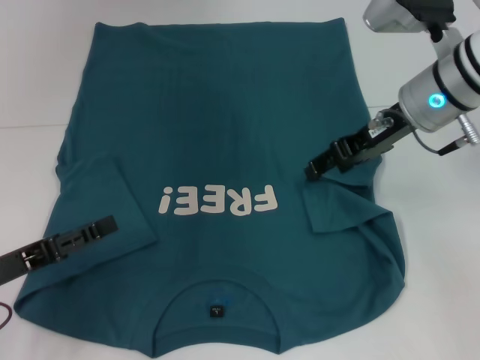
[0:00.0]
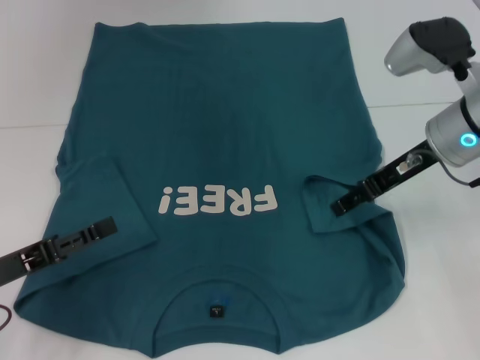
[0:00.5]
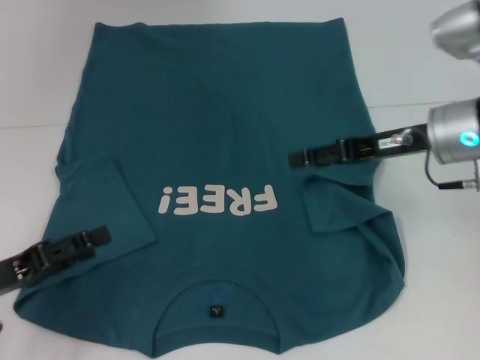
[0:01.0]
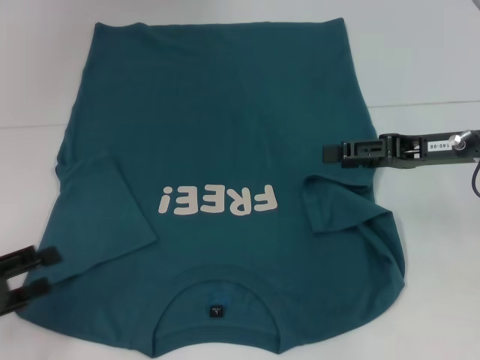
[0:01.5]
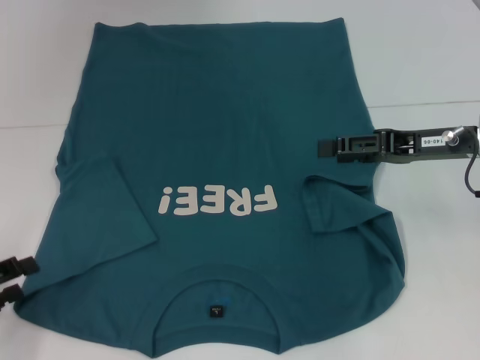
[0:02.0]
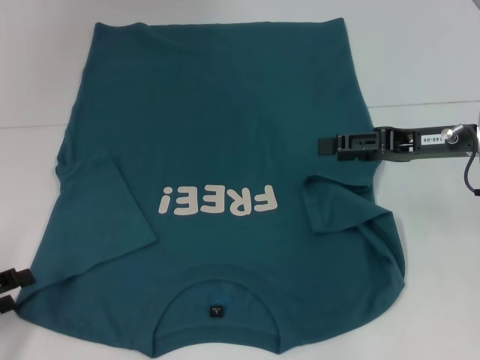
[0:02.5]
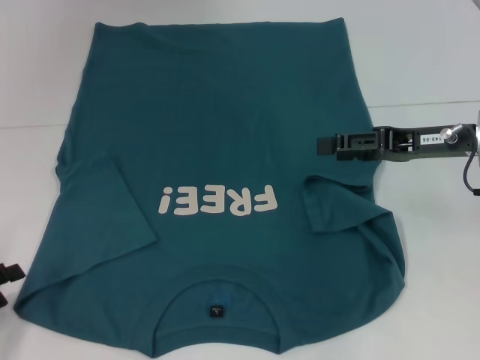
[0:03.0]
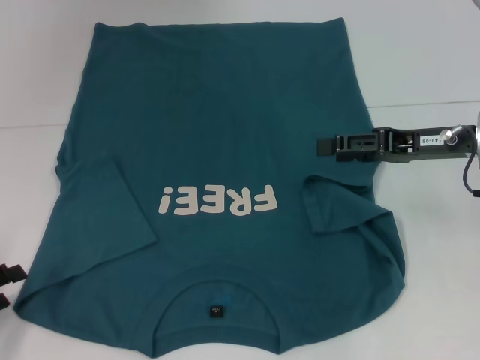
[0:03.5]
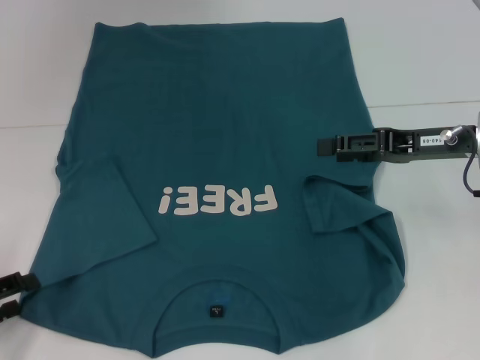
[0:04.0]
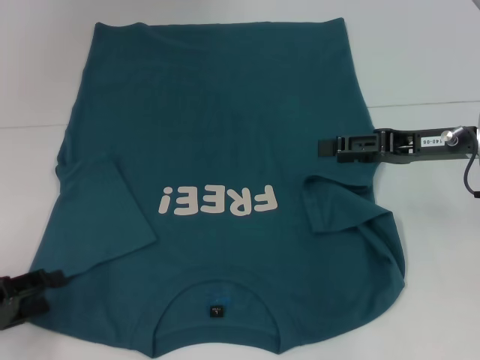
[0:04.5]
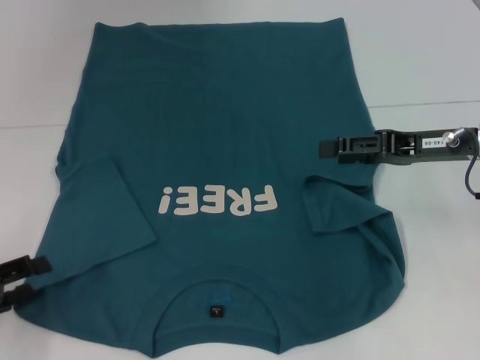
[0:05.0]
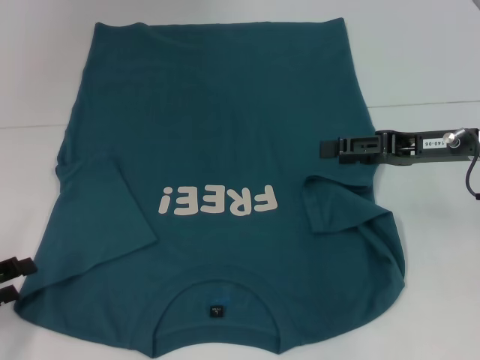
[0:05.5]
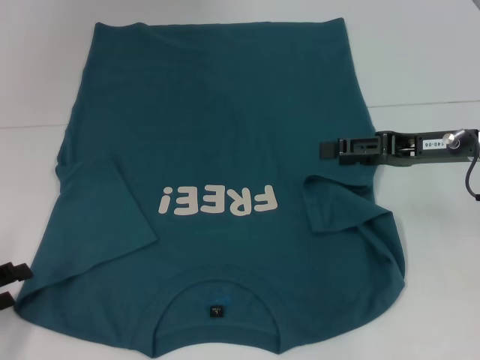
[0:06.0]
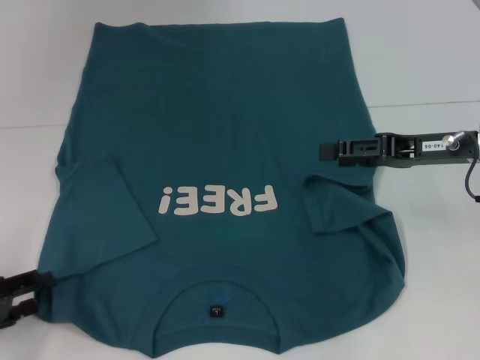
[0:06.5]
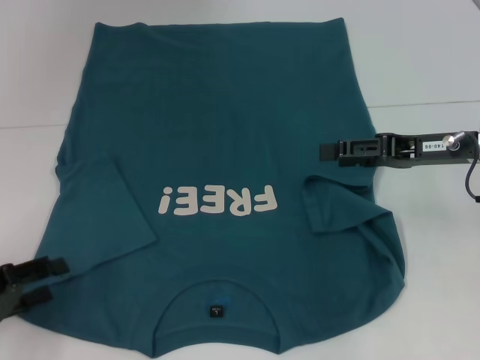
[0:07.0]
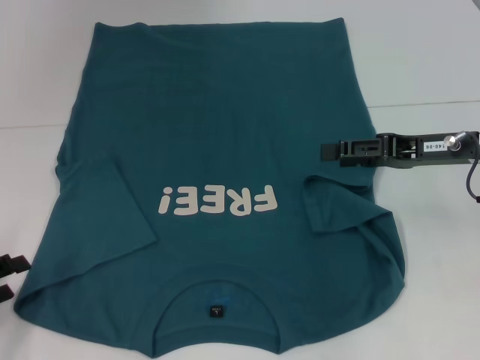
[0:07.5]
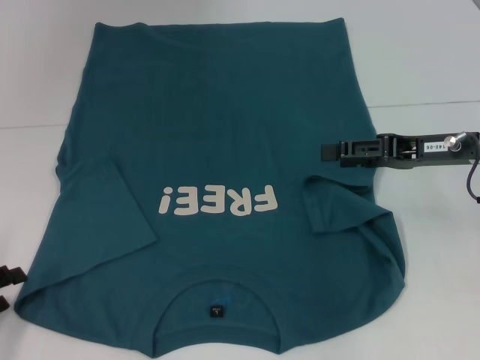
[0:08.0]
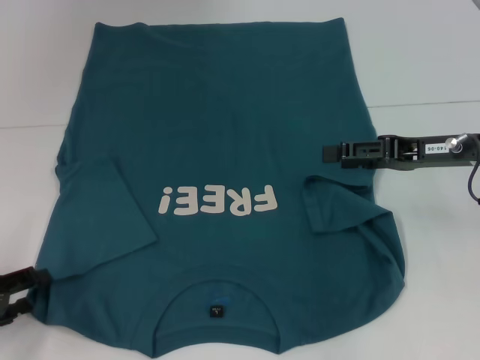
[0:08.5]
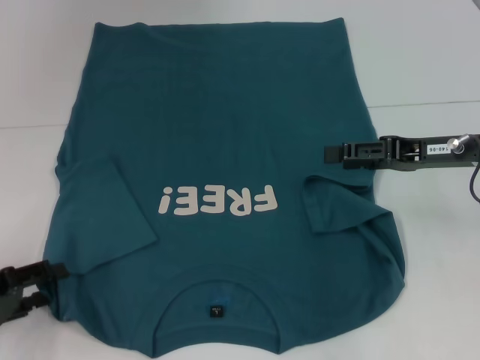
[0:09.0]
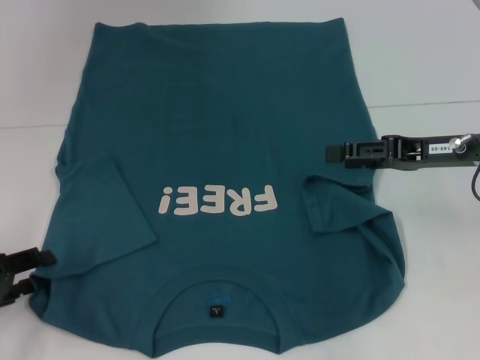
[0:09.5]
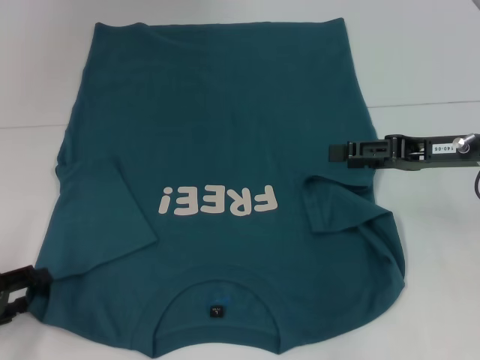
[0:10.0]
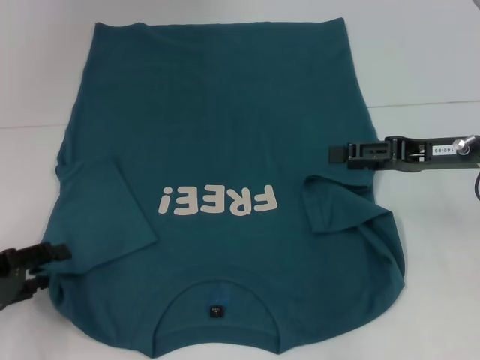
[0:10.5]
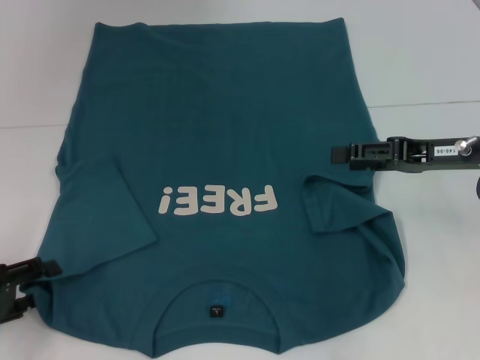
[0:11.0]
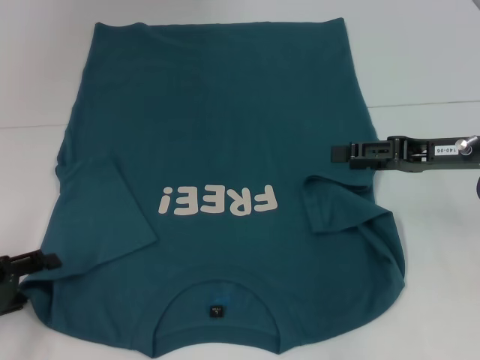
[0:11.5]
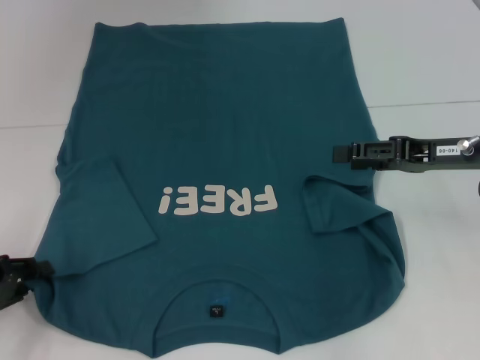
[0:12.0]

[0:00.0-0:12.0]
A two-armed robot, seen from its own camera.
0:00.0 to 0:02.0: The right gripper goes some 10 cm to the right and backward. Meanwhile the left gripper heads to the left, covering roughly 5 cm.
0:02.0 to 0:12.0: The grippers stay close to where they were, moving slightly.

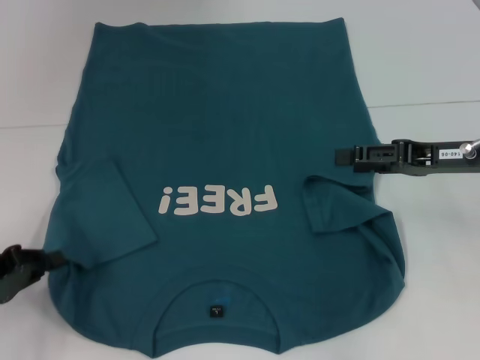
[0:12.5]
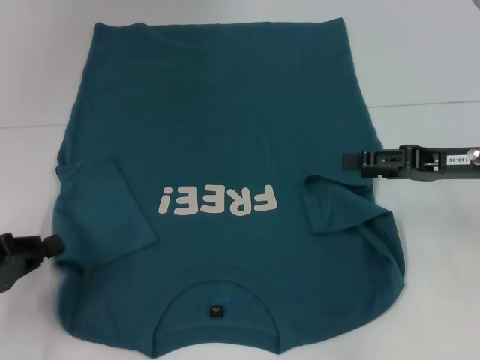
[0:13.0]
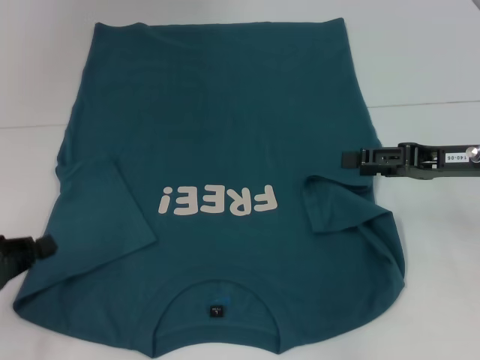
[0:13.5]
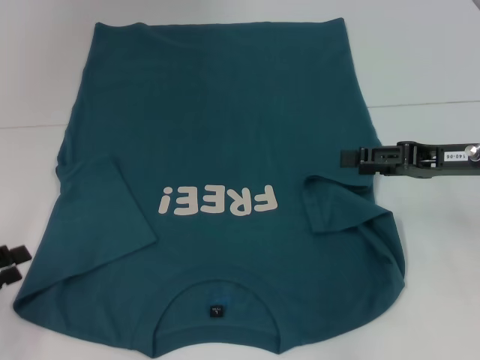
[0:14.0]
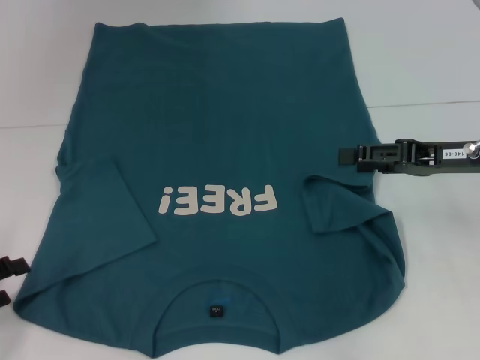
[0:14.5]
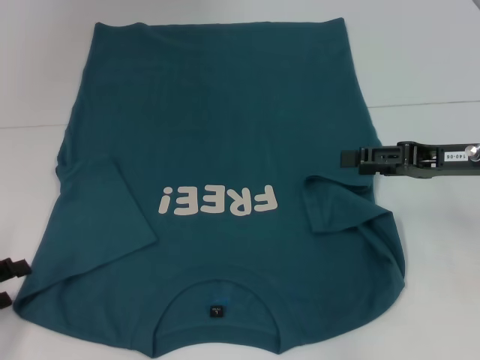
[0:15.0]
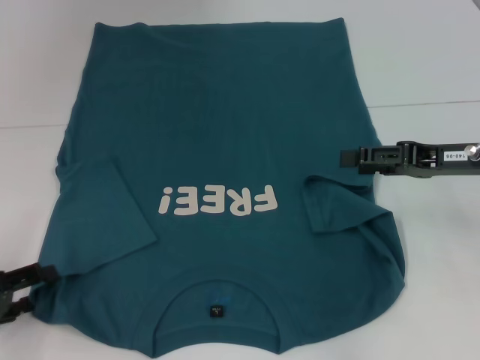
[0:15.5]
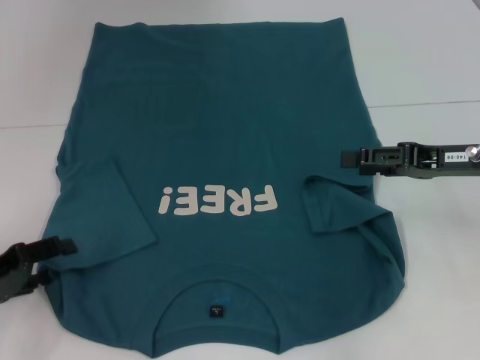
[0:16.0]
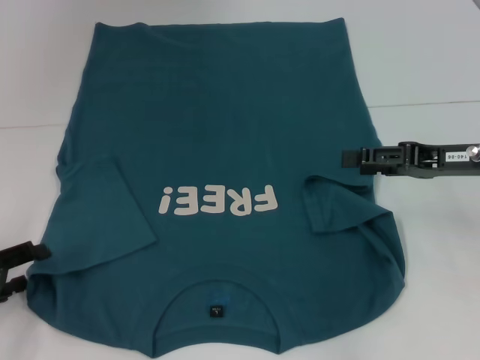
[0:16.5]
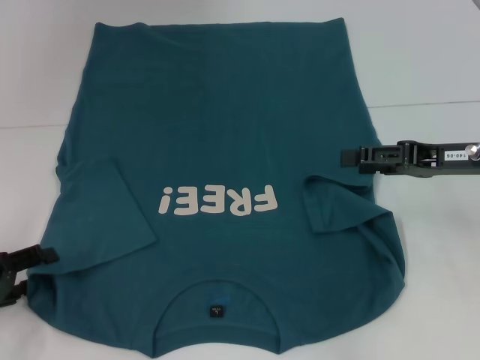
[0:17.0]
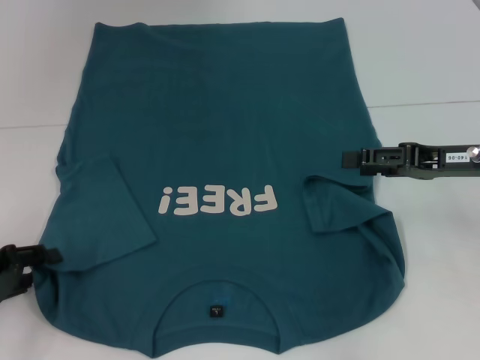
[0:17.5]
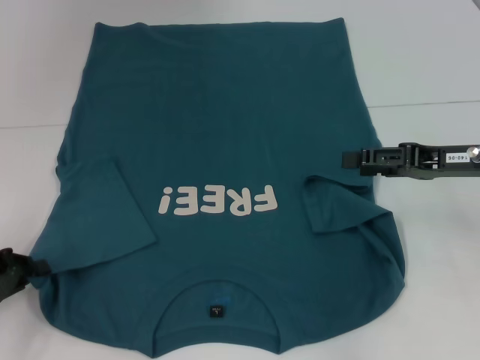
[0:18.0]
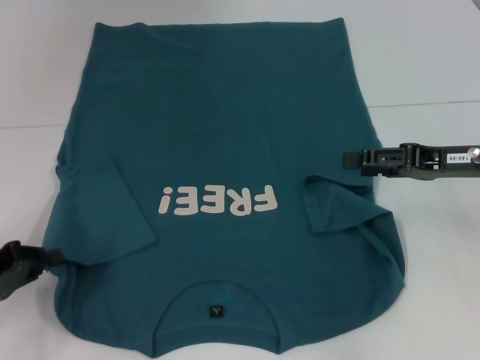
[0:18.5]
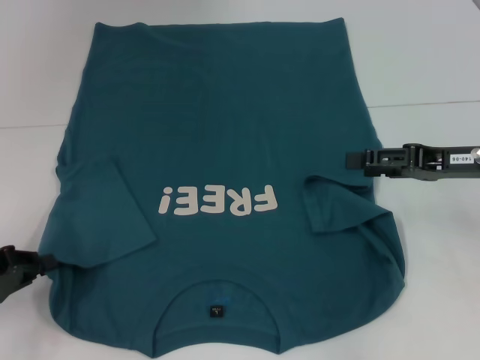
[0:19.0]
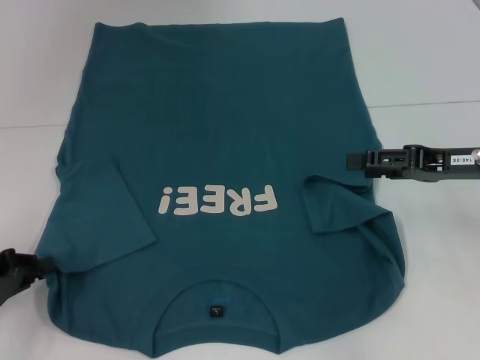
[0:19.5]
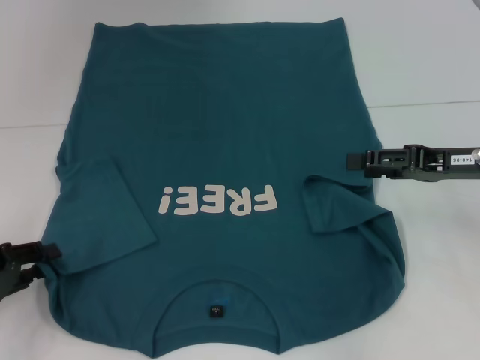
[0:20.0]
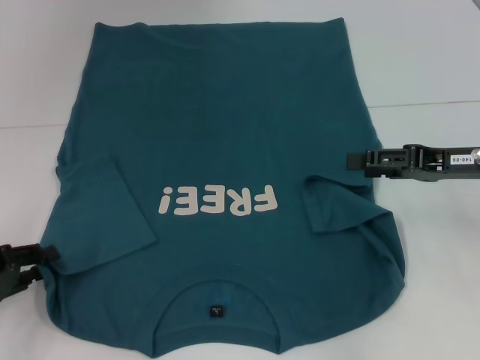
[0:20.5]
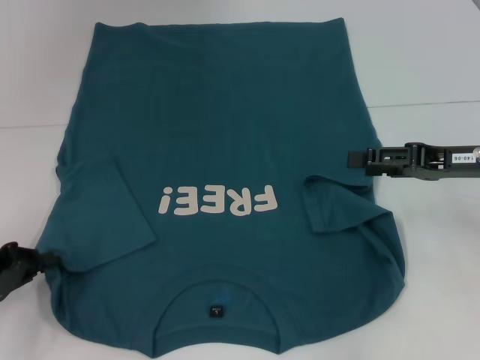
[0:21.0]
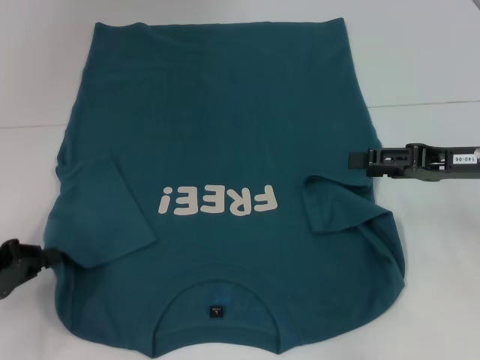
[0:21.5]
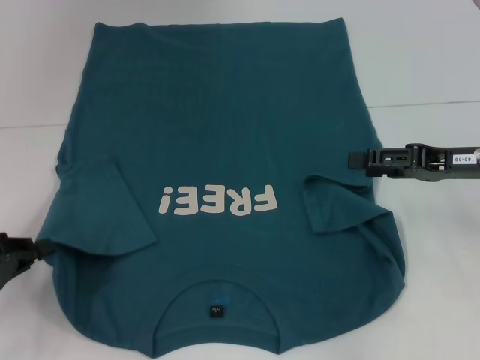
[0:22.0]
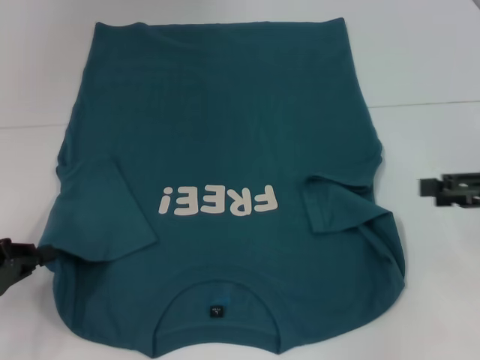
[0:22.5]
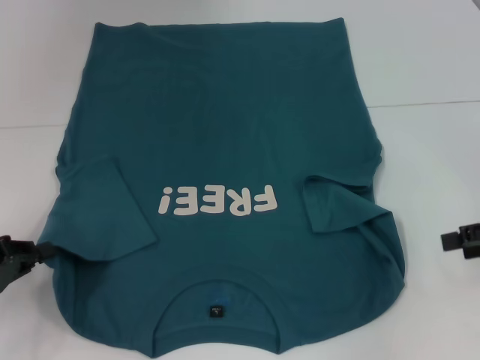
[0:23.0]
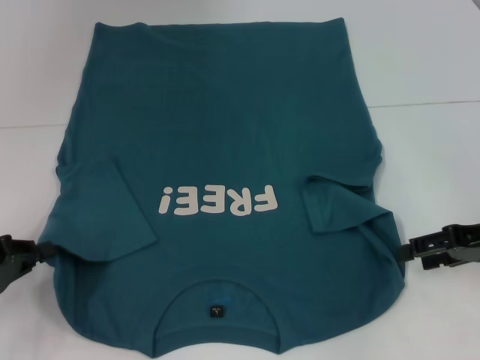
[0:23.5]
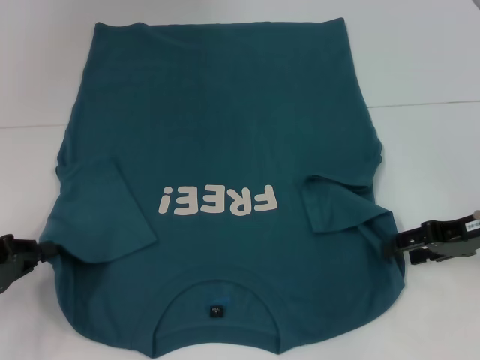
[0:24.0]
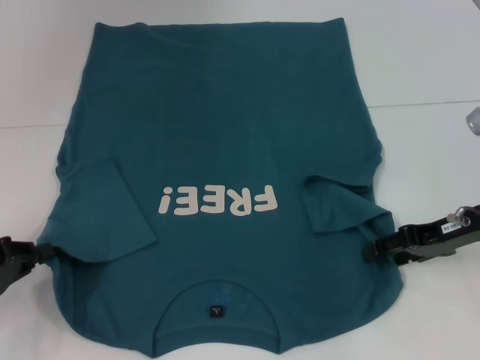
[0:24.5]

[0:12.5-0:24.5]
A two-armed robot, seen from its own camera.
Step, 0:12.5 to 0:22.5: Grab the bottom left corner with your left hand.
0:12.5 to 0:14.5: The left gripper opens.
0:14.5 to 0:16.5: The grippers move only a little.
0:16.5 to 0:18.5: The left gripper closes its fingers.
0:18.5 to 0:20.5: The left gripper opens.
0:20.5 to 0:22.5: The left gripper closes up, while the right gripper goes some 5 cm to the right.
0:22.5 to 0:24.5: The right gripper heads to the left and downward, covering roughly 10 cm.

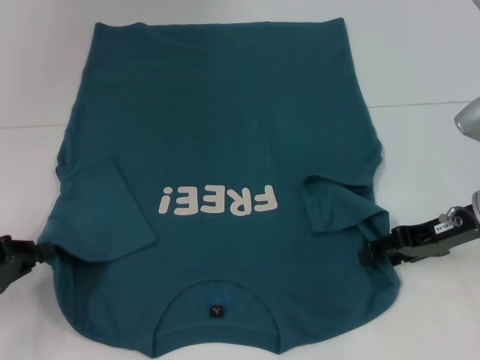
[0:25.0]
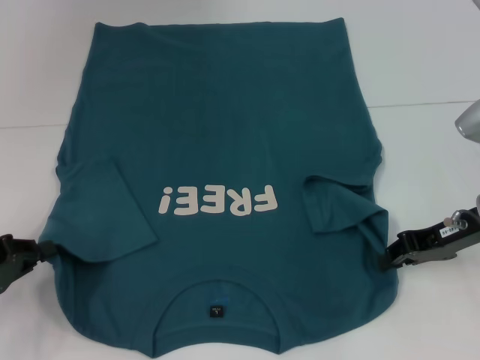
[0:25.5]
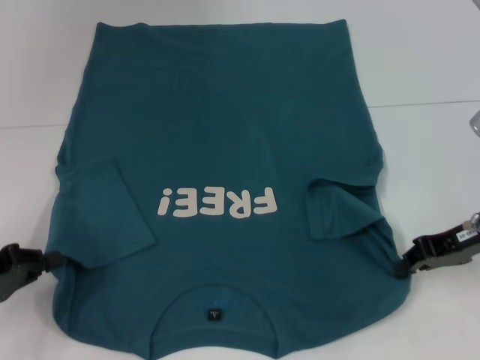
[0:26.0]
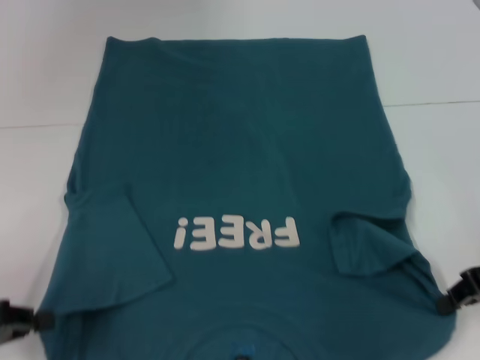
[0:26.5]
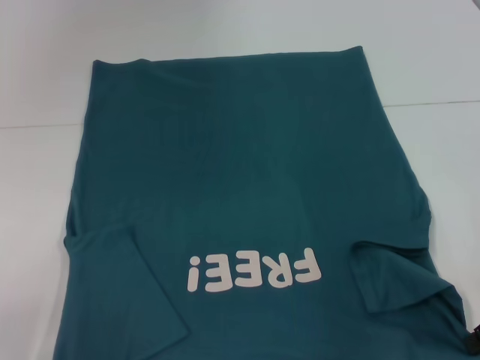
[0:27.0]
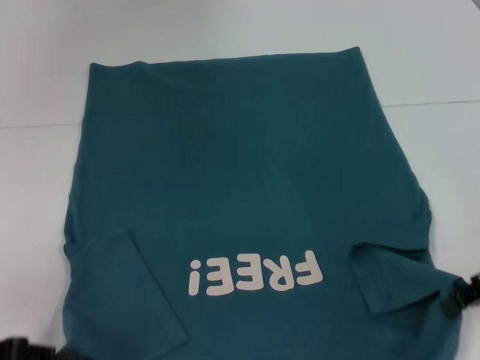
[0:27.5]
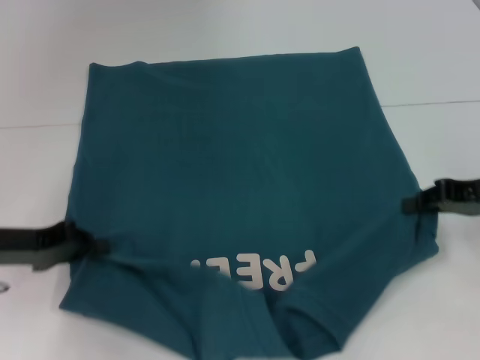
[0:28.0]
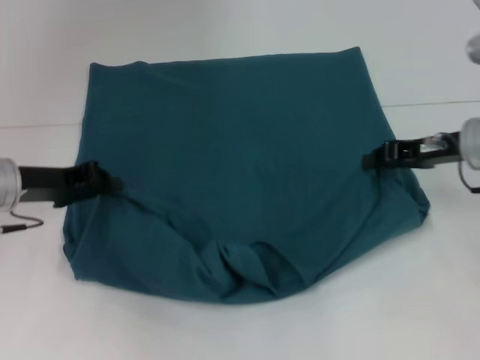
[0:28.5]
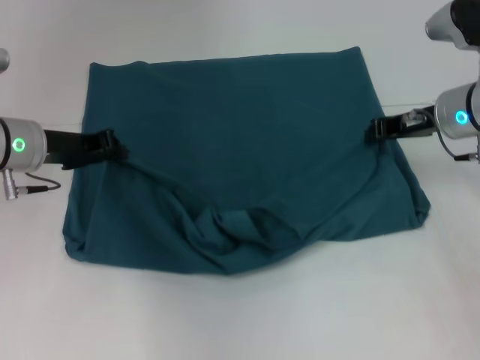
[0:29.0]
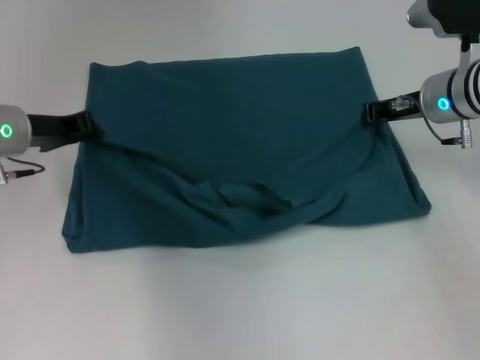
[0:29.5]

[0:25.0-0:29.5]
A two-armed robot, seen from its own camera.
0:25.0 to 0:27.0: The right gripper travels backward and to the right by some 10 cm, and closes. Meanwhile the left gripper shifts approximately 5 cm backward.
0:27.0 to 0:29.5: The left gripper is displaced forward and to the right by some 25 cm, while the right gripper goes roughly 20 cm forward and to the left.
